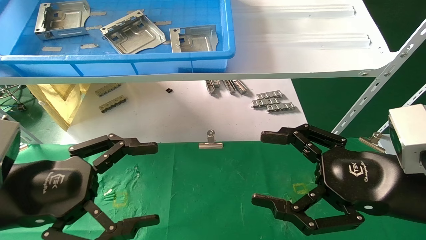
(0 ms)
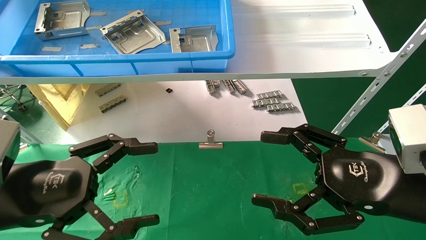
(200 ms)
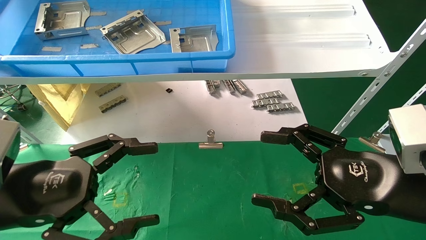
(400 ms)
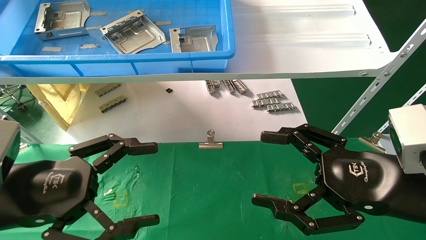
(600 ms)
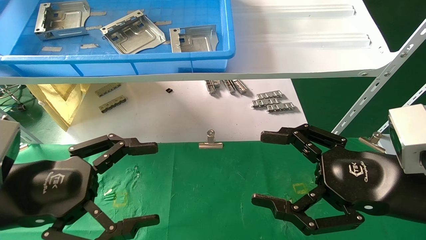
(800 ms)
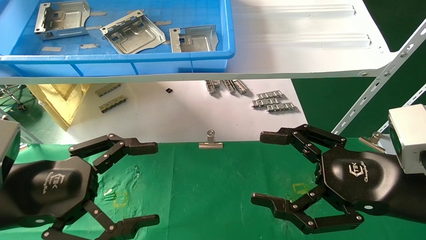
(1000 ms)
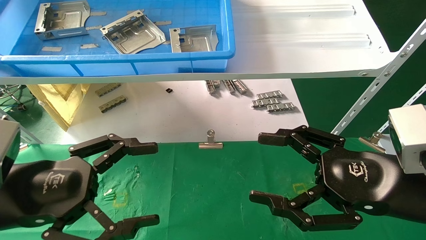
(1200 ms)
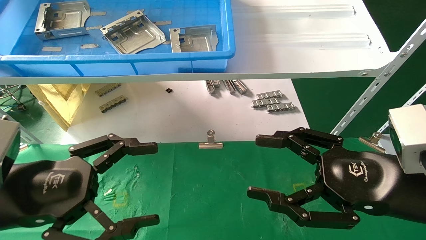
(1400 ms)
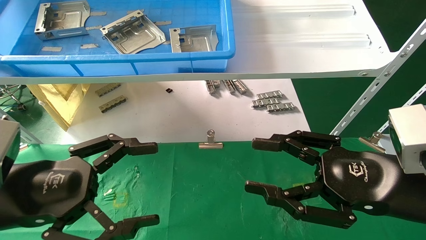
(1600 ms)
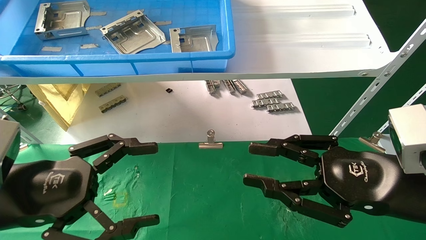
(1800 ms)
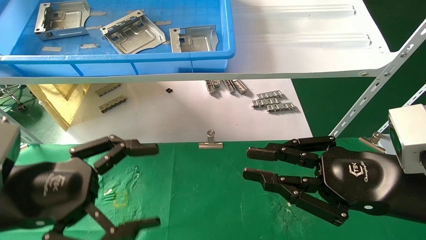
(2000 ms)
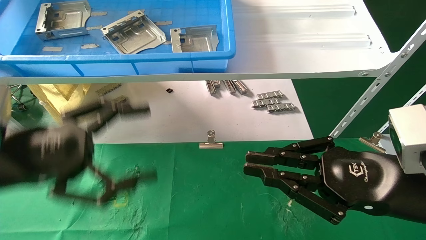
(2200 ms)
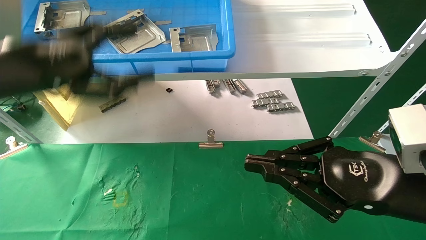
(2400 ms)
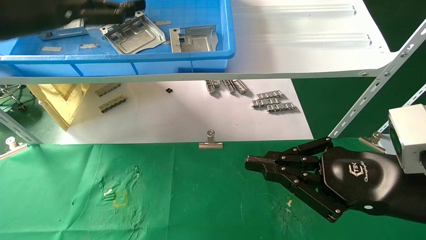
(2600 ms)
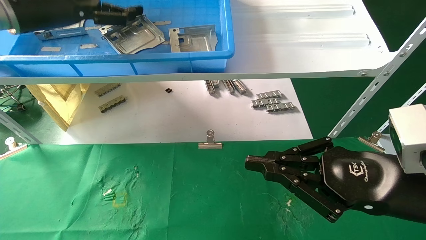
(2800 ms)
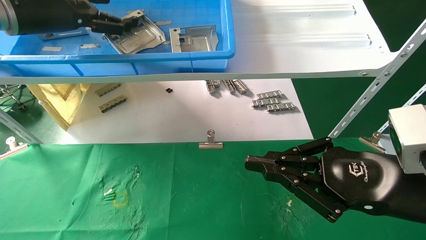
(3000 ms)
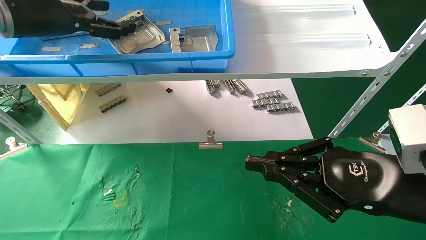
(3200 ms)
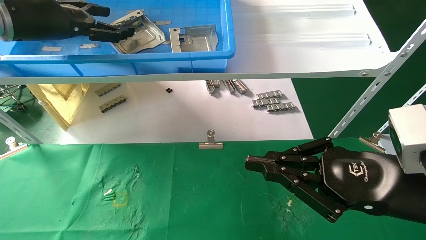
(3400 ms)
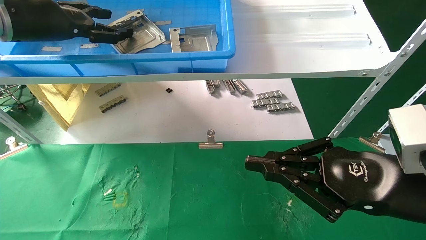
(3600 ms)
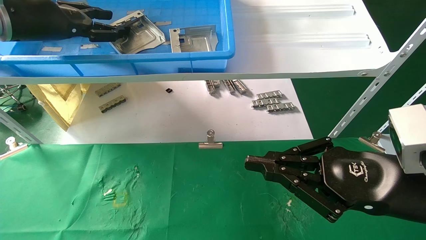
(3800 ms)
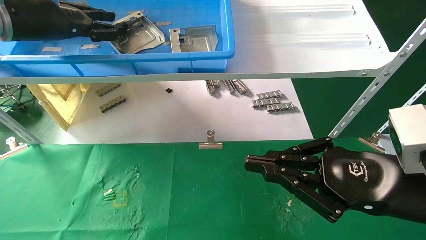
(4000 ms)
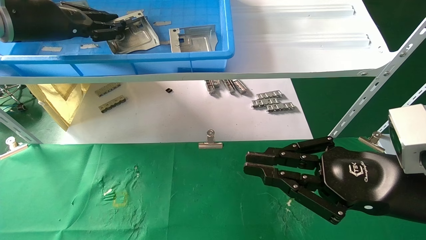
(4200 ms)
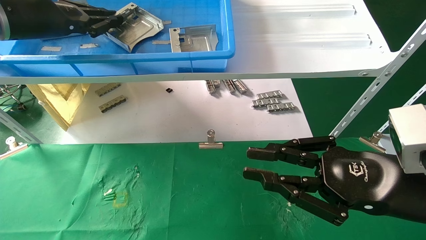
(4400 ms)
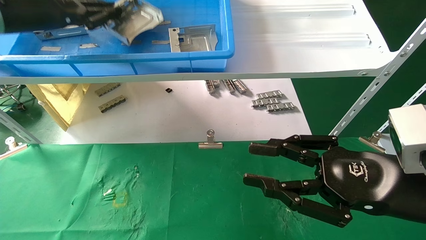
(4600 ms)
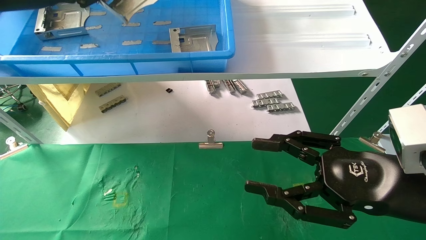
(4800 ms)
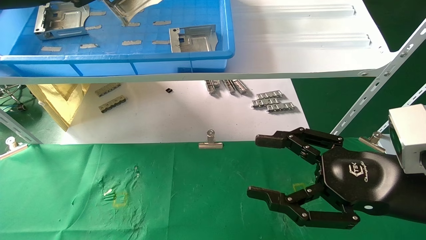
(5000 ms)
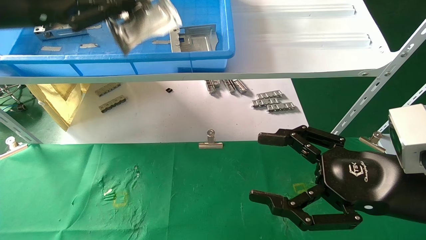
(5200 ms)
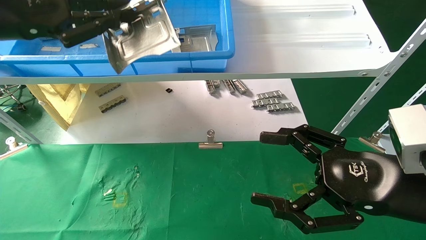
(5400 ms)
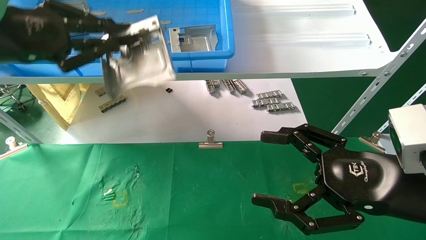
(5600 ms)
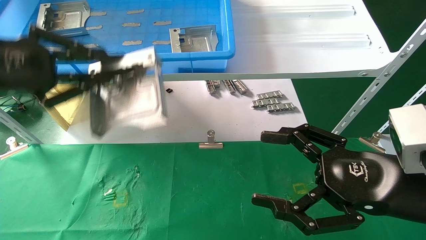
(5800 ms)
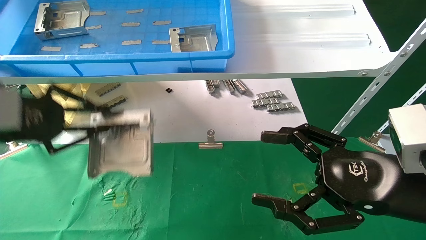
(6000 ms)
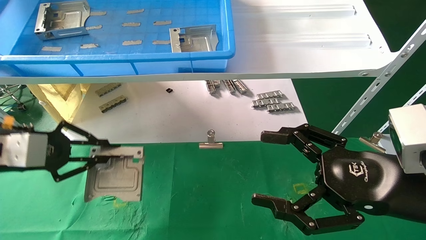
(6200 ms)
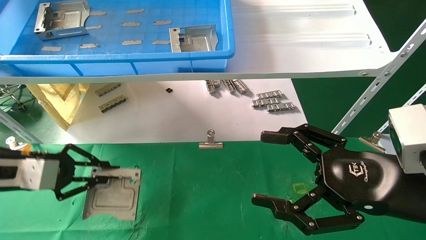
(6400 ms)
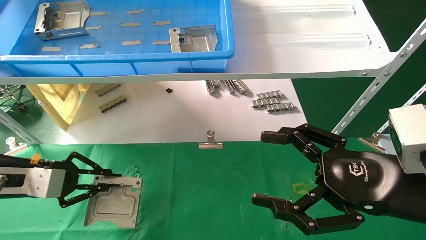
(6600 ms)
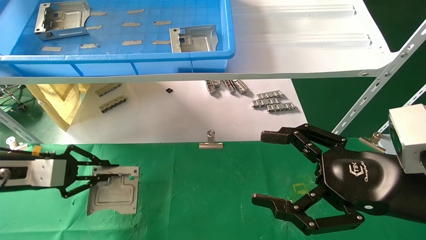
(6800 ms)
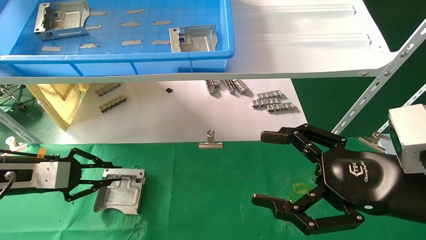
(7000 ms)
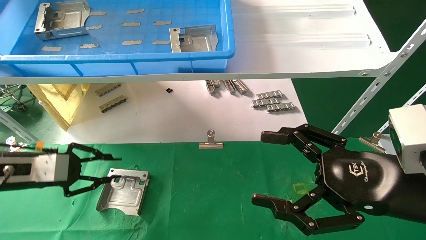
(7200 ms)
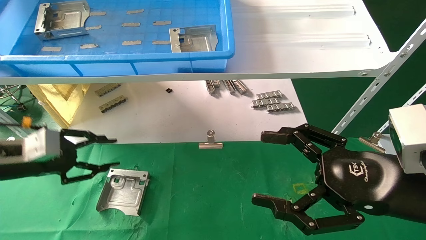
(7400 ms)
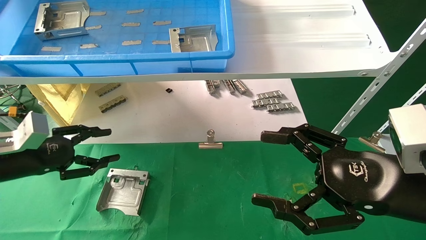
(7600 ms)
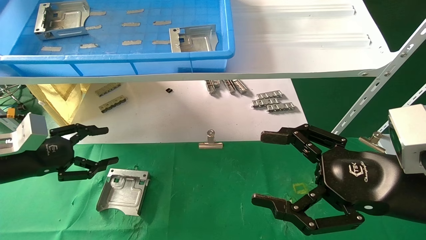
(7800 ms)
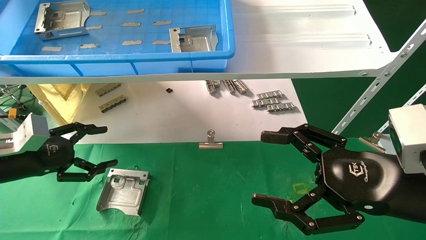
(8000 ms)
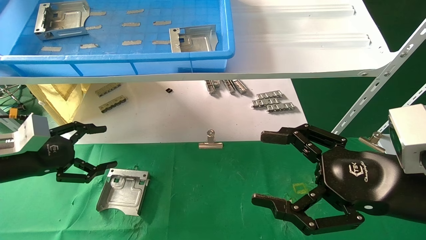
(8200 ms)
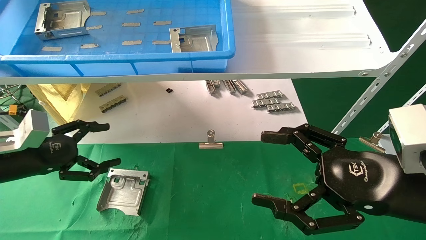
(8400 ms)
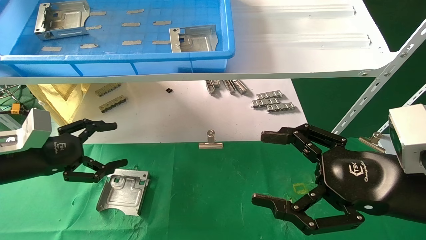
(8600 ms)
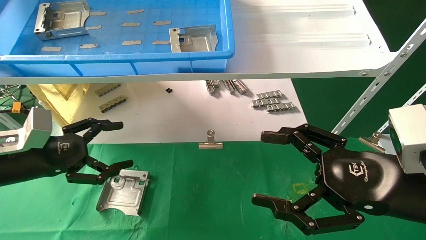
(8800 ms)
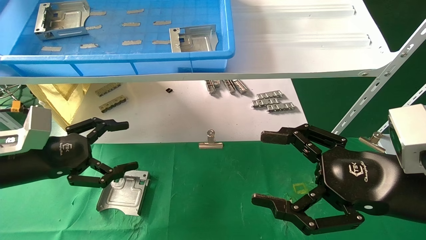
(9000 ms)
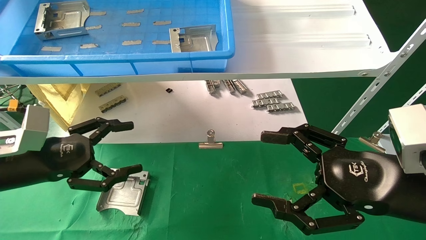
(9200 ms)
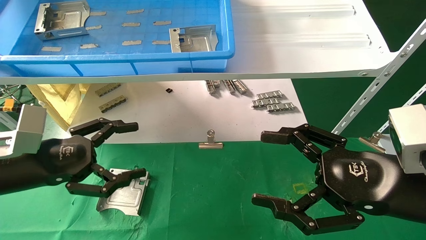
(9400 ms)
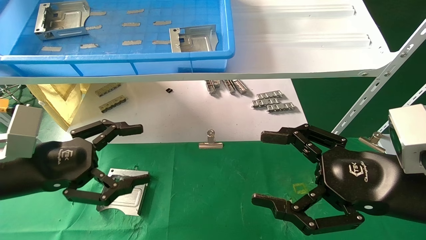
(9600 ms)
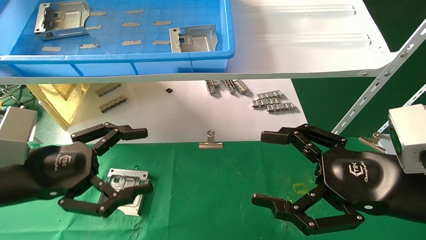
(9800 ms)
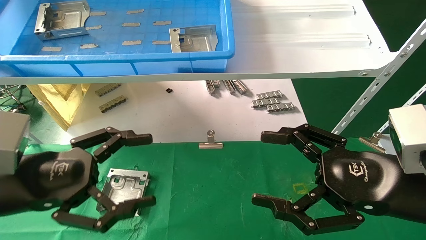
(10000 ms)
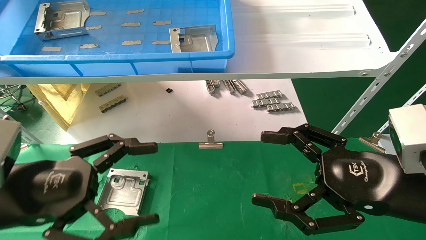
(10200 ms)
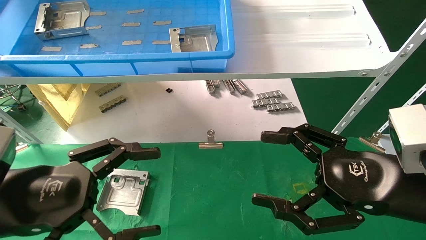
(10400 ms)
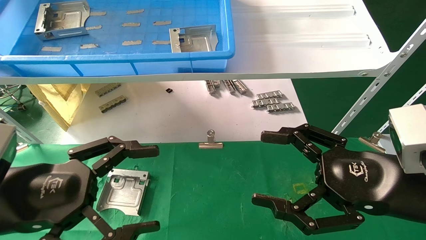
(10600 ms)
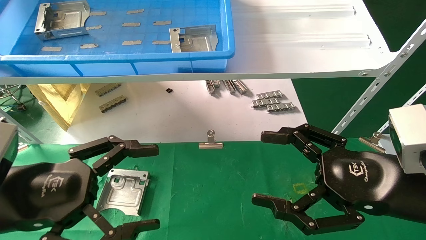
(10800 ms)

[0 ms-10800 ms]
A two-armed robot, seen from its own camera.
Task of the whole recording: use the mechanical arm to pick up the parts and place them on the table.
Step, 2400 ms to 4400 ms: Pick up the hard drive bracket from the feeding area.
Step, 4600 ms to 7200 ms: Place the hard drive bracket into the box.
0 ms to 1600 ms: Neither gripper changes place.
1600 ms to 3000 ms: The left gripper goes some 30 cm upward and forward, while the right gripper closes up.
3000 ms to 4600 ms: The left gripper closes.
4600 ms to 6200 ms: The left gripper travels downward by roughly 20 cm; the right gripper opens.
6200 ms to 7800 ms: The left gripper heads downward, covering some 5 cm, and opens its fingers.
7800 ms to 9200 ms: The left gripper travels to the right by roughly 5 cm, and opens.
9200 ms to 10800 ms: The left gripper goes roughly 10 cm backward and to the right.
